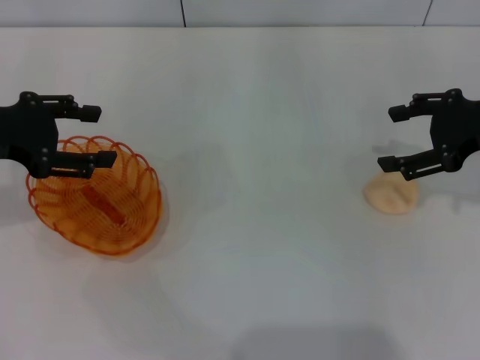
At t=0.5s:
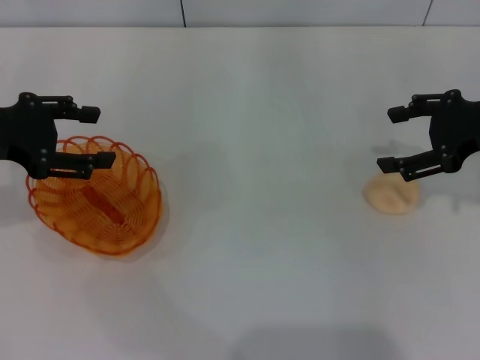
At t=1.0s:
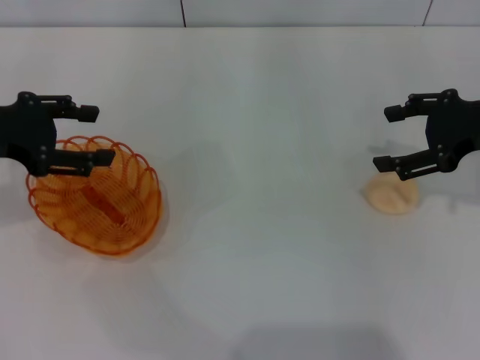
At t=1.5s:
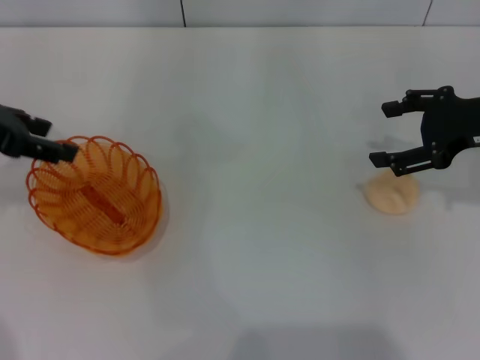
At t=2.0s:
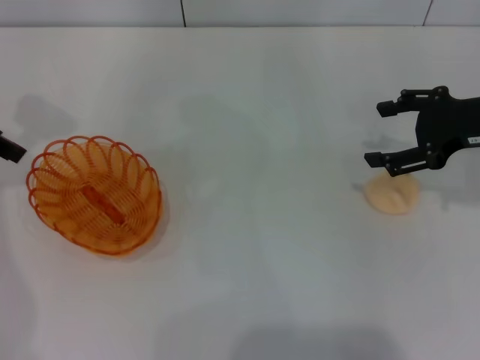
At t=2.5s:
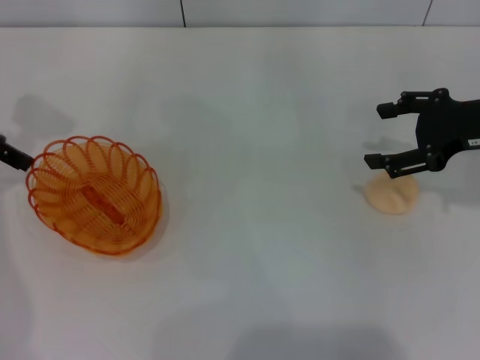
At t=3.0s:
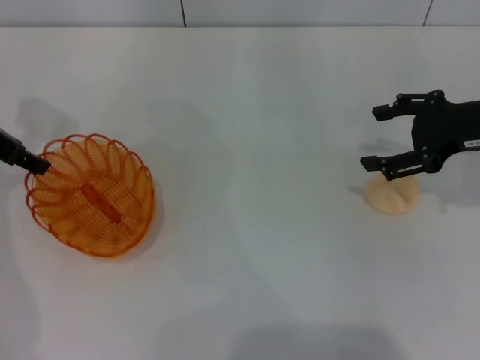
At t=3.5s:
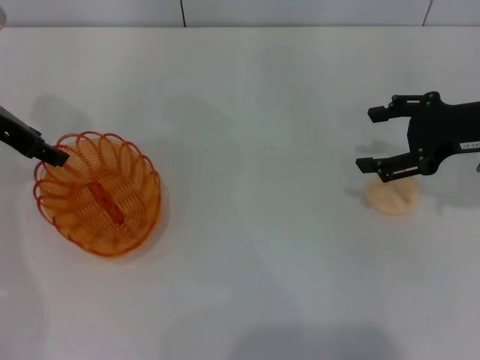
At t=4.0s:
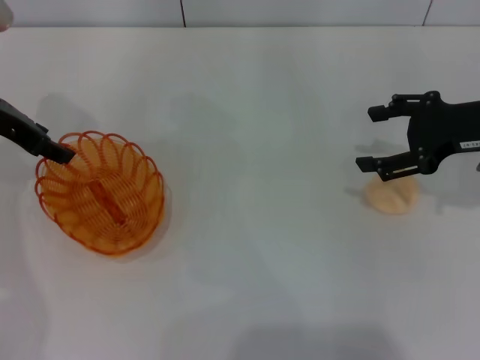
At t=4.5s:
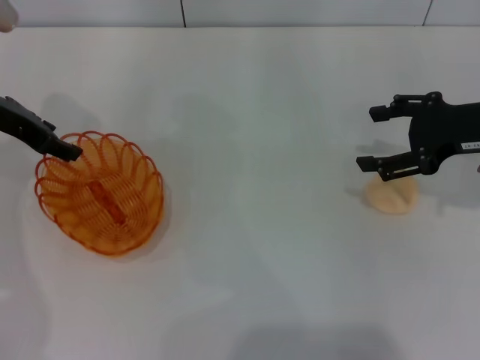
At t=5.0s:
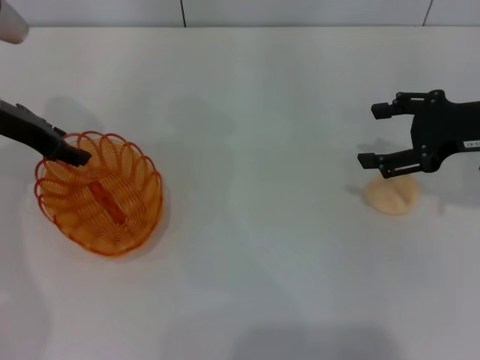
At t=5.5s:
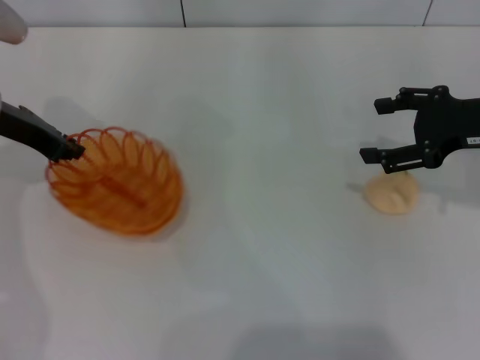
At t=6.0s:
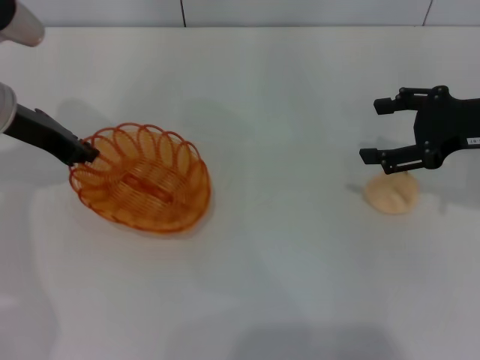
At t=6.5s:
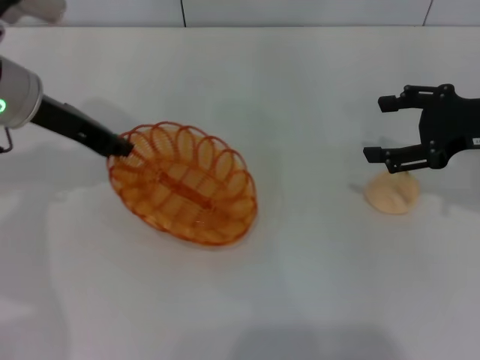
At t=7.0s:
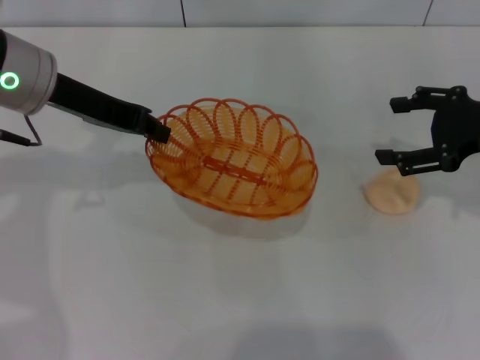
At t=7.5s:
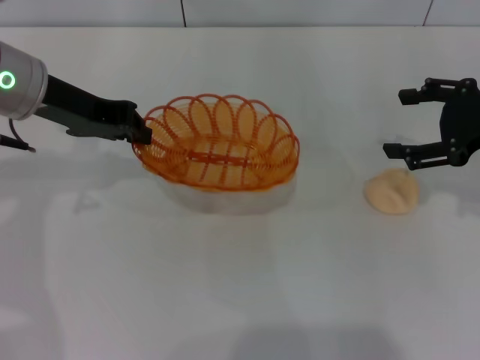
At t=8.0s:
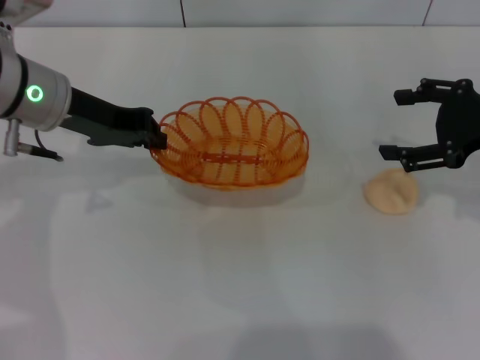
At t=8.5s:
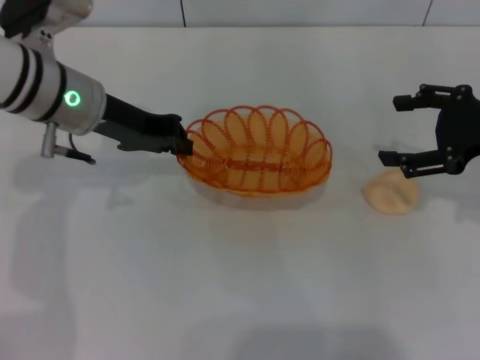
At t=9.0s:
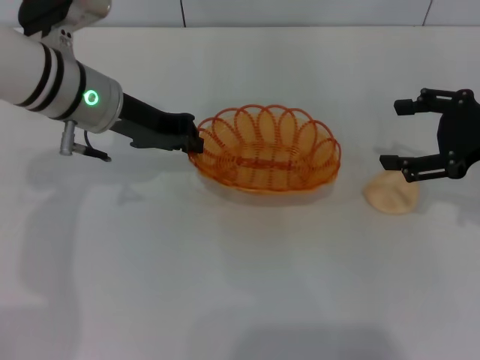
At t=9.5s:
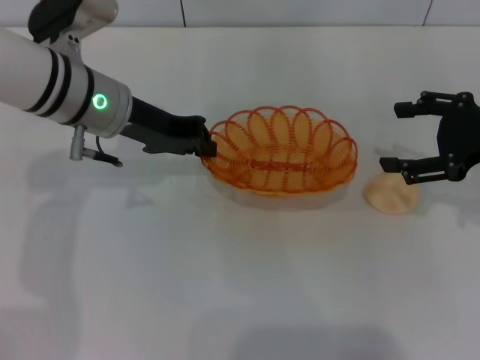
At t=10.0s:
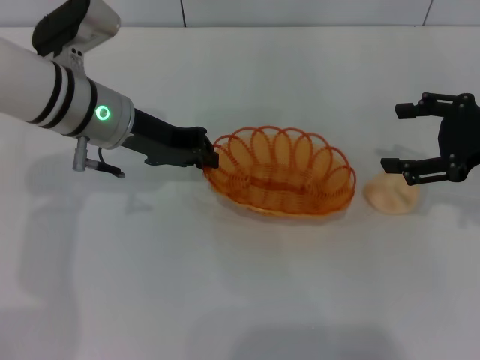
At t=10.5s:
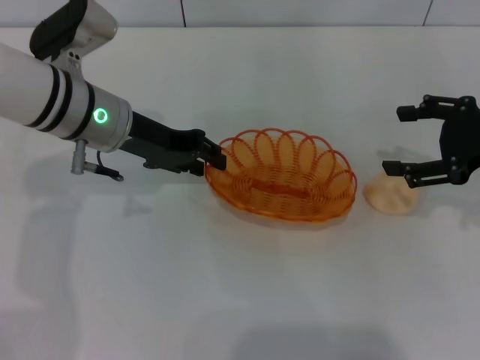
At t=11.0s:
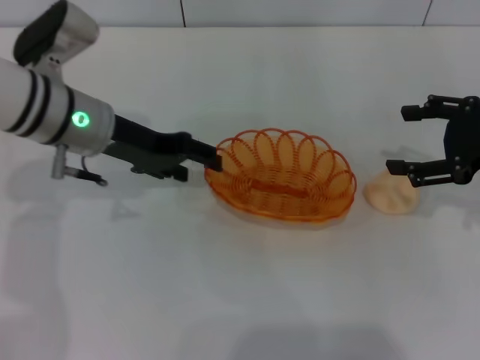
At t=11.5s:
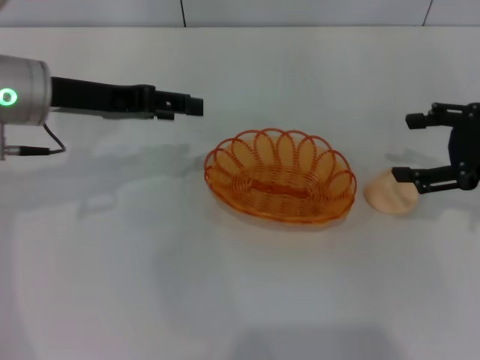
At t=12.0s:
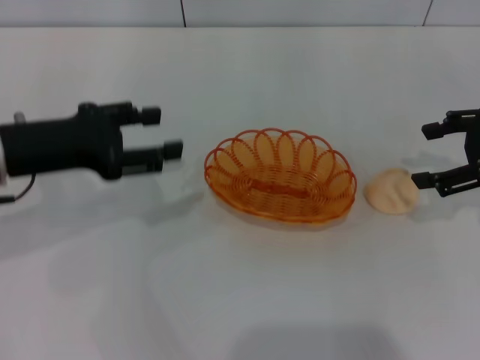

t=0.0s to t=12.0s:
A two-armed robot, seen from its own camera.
Step, t=0.0s to t=7.0s: Pick up the basket with the left gripper.
Step, t=7.5s to t=11.0s: Place the basket in the center of view with the left gripper.
t=0.0s to t=2.0s: The left gripper moves upward, roughly 5 cm.
t=2.0s to t=4.0s: The left gripper is displaced downward by roughly 5 cm.
t=4.0s to t=6.0s: The left gripper closes its fingers.
t=6.0s to t=8.0s: The left gripper heads to the right, covering roughly 5 cm.
t=8.0s to t=10.0s: The left gripper ends up some 5 cm from where it was.
t=10.0s to t=12.0s: The left gripper travels to the left and backward by roughly 10 cm, and opens.

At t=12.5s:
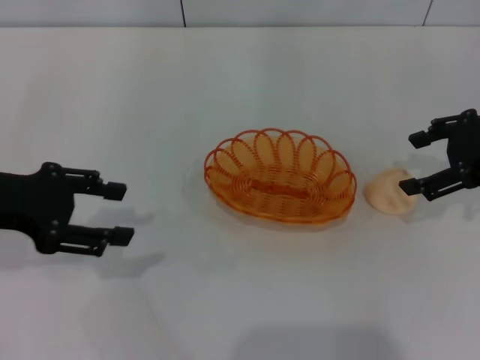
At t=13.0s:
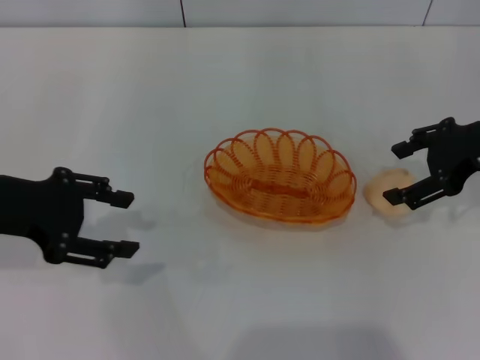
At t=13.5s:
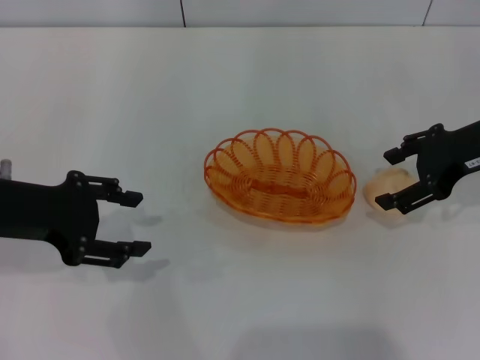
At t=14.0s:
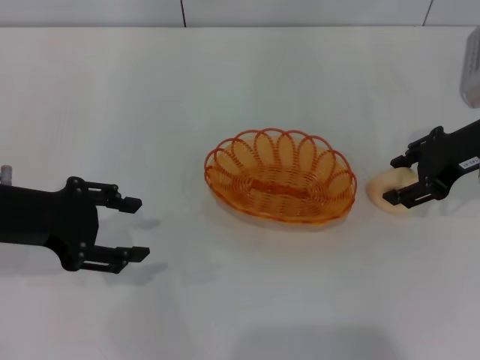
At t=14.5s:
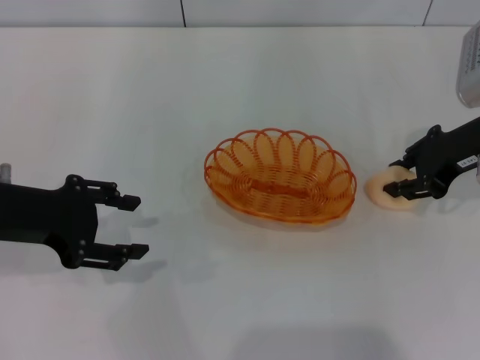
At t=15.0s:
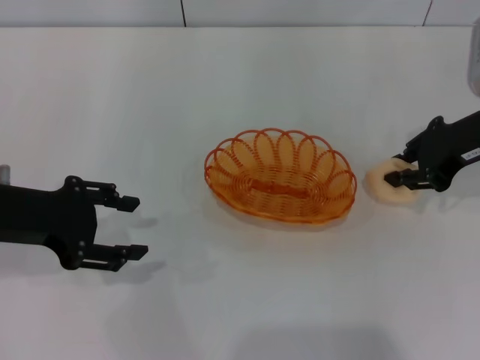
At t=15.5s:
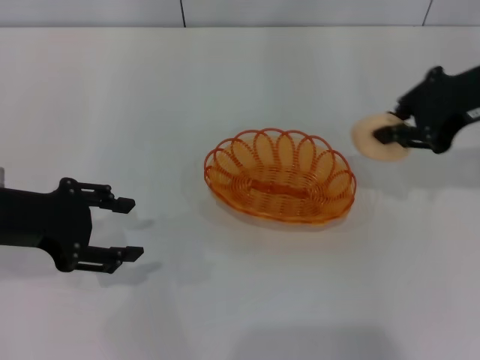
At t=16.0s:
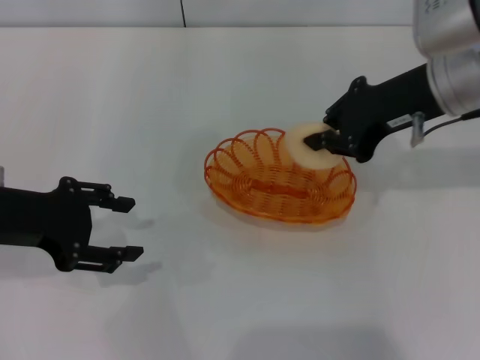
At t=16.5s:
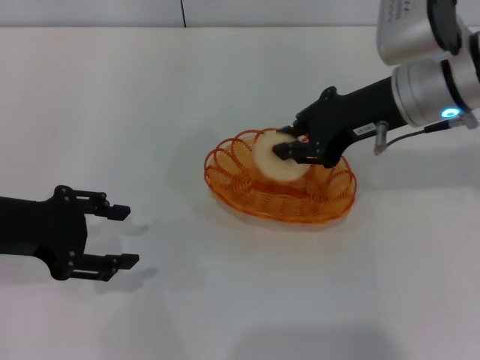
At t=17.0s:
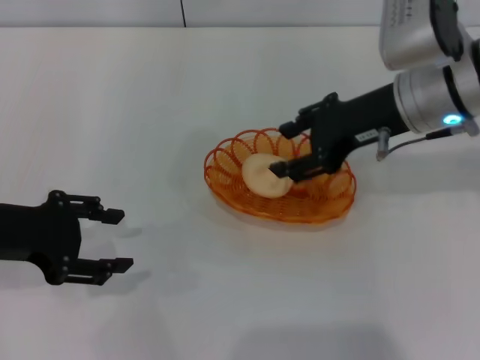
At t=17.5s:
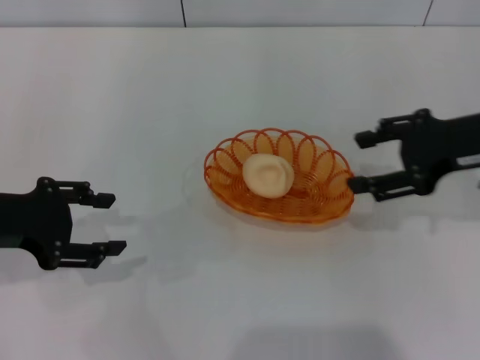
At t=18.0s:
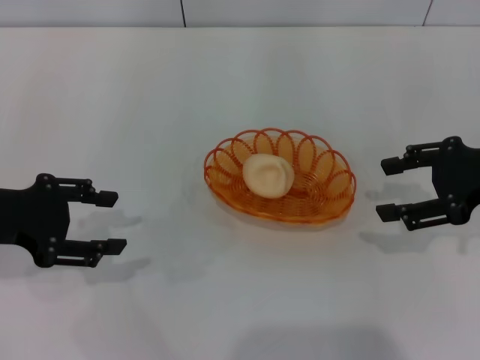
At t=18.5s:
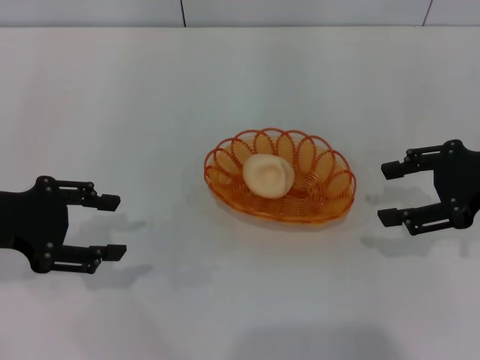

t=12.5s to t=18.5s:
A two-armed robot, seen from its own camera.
Step, t=12.5s to t=15.0s: Pick up the egg yolk pastry with the right gripper.
Step, t=15.5s to t=17.5s: Place the egg yolk pastry into the basket with the right gripper.
t=12.5s to t=14.5s: The right gripper changes place by roughly 5 cm, and closes its fingers.
t=14.5s to t=16.5s: The right gripper shifts about 10 cm to the left, and closes its fingers.
t=16.5s to t=18.5s: The right gripper goes about 15 cm to the right and backward, and opens.

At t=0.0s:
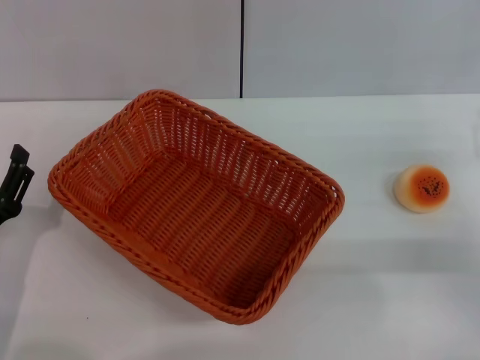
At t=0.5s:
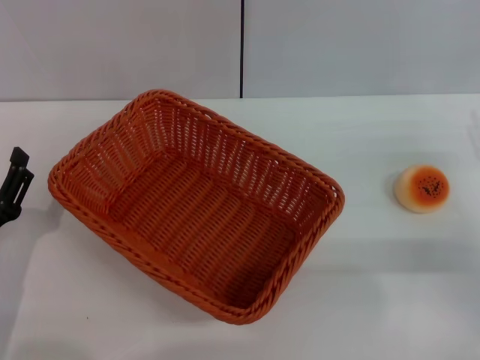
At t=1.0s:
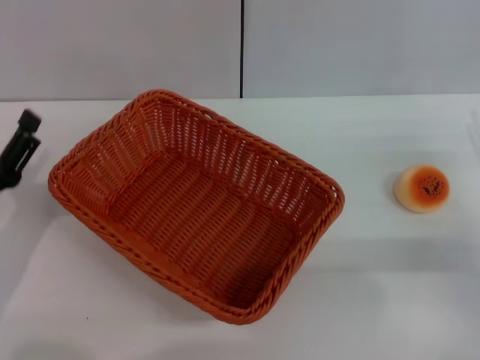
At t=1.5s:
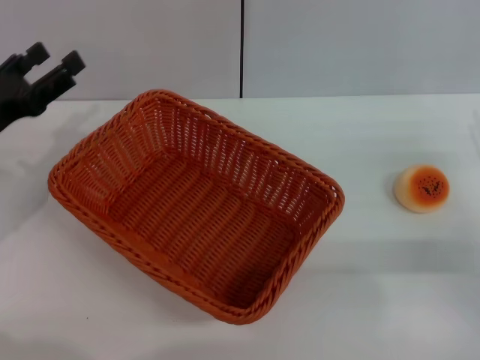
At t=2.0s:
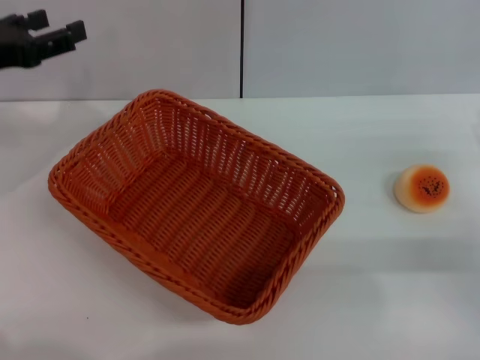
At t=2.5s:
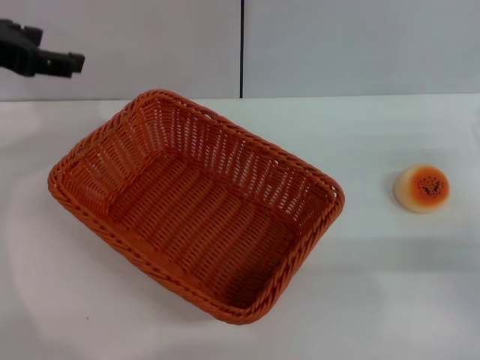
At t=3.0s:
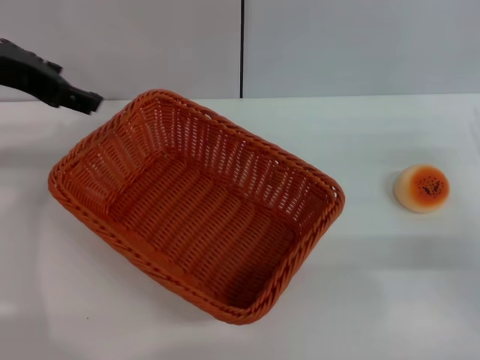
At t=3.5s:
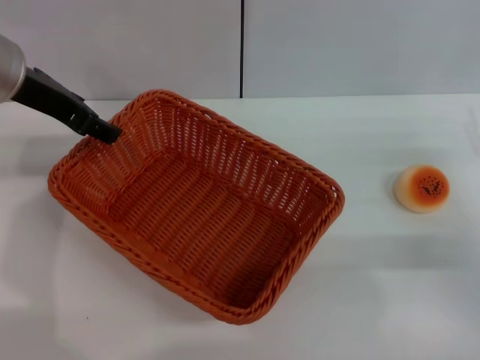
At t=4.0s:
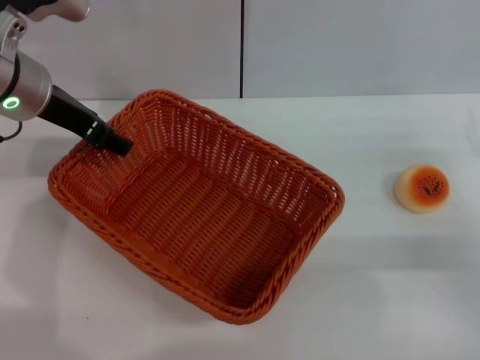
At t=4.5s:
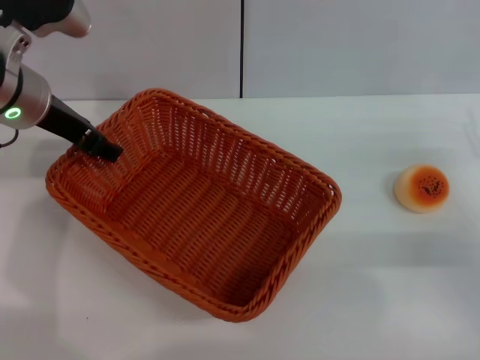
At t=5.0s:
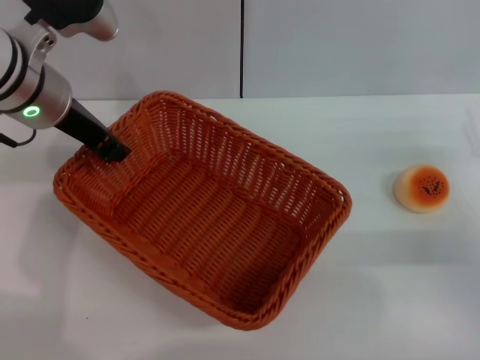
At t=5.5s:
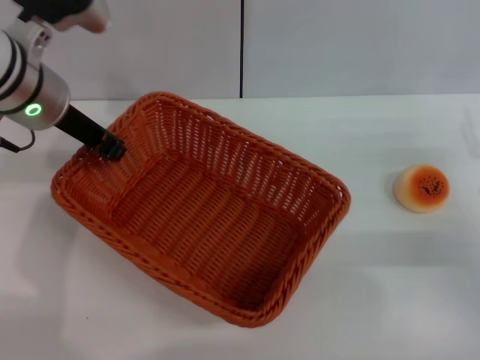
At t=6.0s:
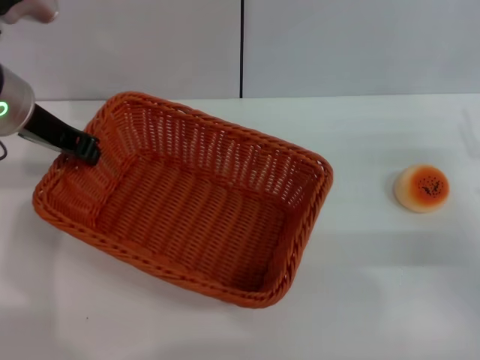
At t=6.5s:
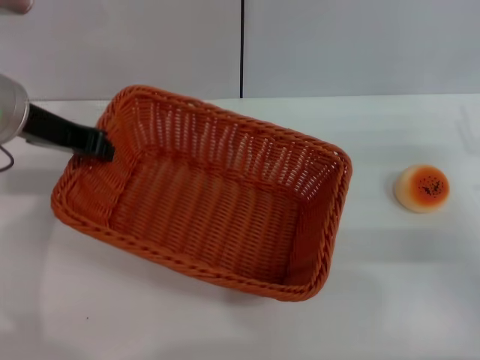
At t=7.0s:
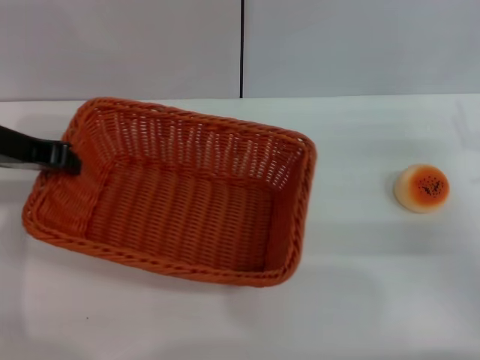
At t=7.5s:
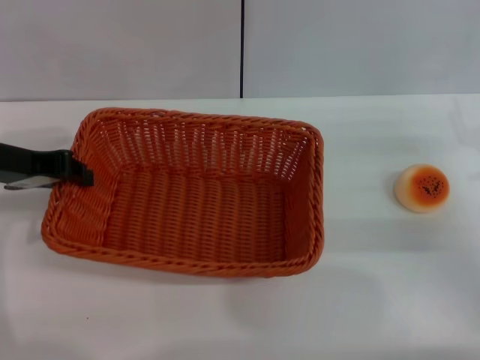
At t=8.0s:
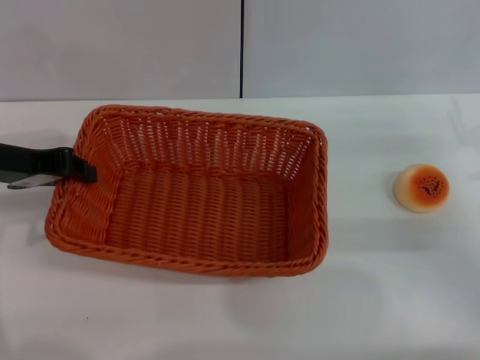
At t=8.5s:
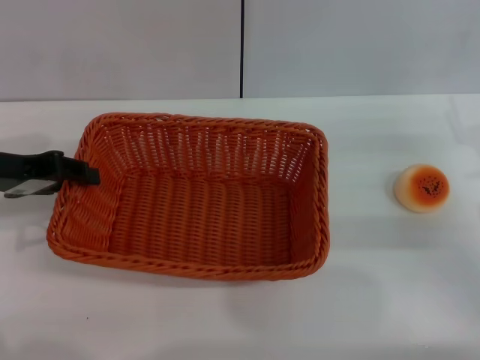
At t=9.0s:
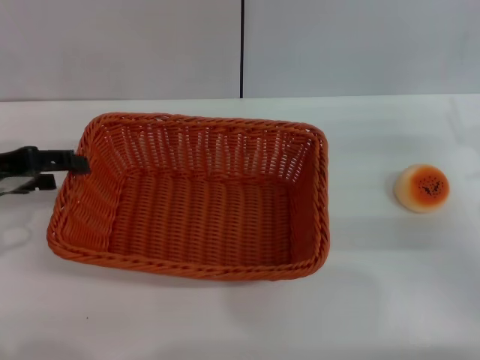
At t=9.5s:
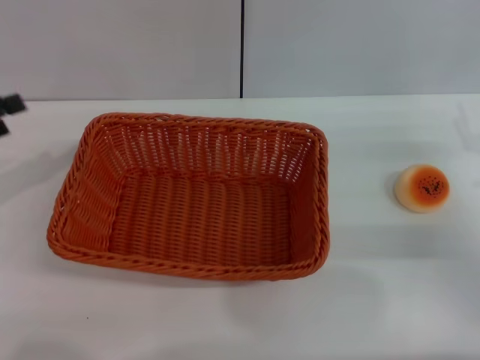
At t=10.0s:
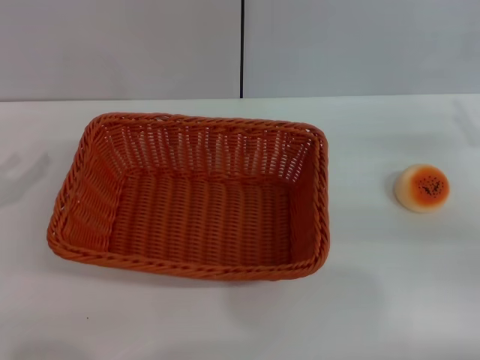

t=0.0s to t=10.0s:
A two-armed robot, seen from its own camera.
Step, t=0.0s to t=9.0s: Move the basket to the center of view with the left gripper.
t=0.0s to t=2.0s: The left gripper goes approximately 20 cm upward and forward.
t=2.0s to t=4.0s: The left gripper moves to the right, about 10 cm.
t=4.0s to t=6.0s: The left gripper closes its fingers.
t=6.0s to t=8.0s: The left gripper heads to the left and backward, covering about 5 cm.
t=8.0s to t=10.0s: The left gripper shifts some 15 cm to the left, backward and downward, and opens.
